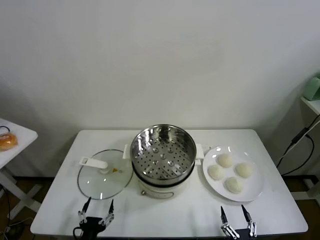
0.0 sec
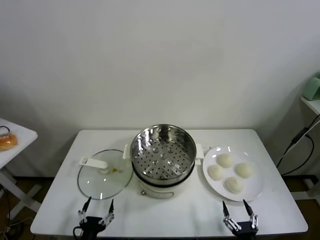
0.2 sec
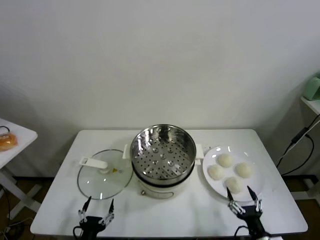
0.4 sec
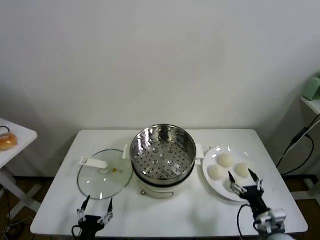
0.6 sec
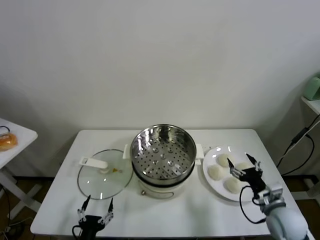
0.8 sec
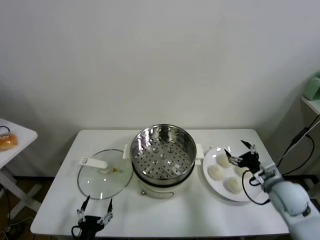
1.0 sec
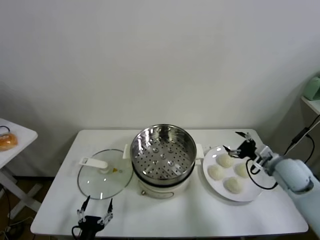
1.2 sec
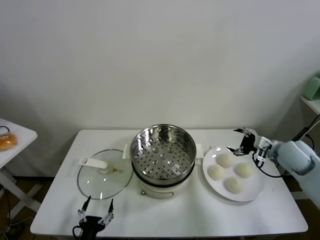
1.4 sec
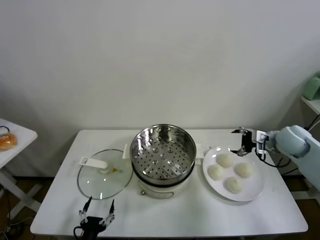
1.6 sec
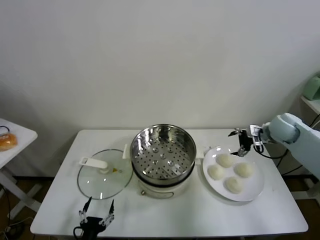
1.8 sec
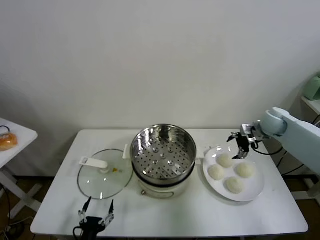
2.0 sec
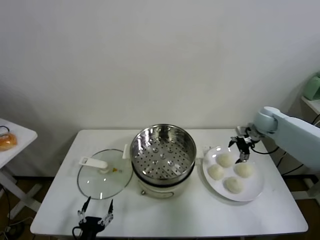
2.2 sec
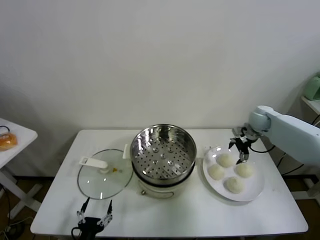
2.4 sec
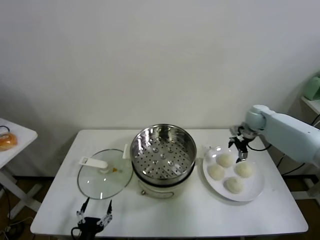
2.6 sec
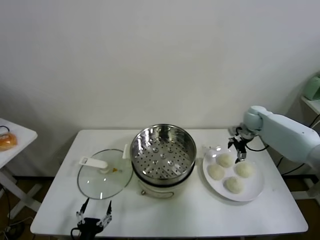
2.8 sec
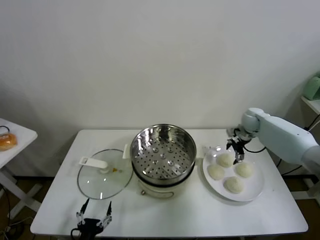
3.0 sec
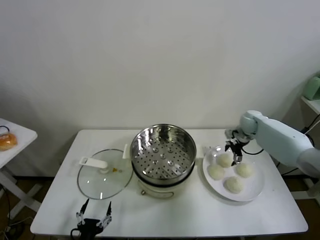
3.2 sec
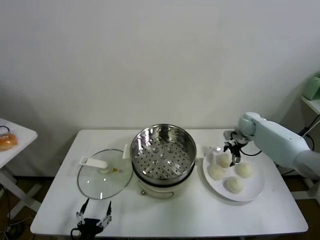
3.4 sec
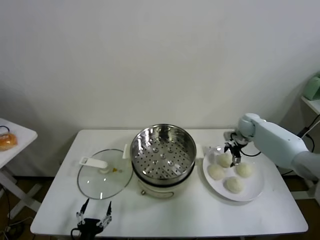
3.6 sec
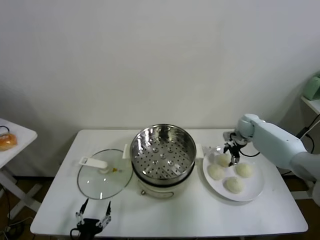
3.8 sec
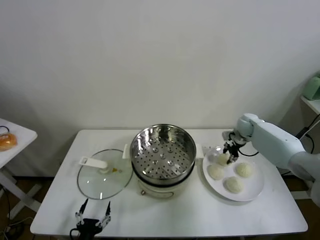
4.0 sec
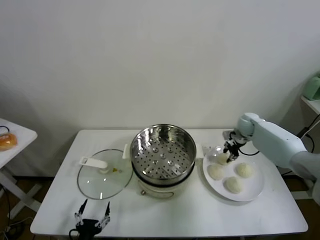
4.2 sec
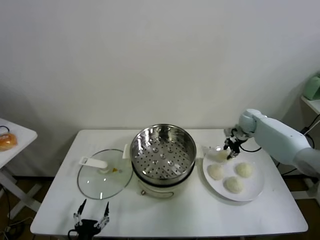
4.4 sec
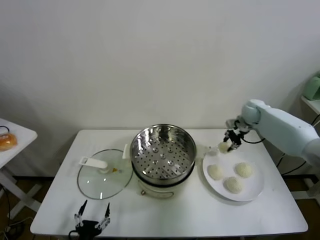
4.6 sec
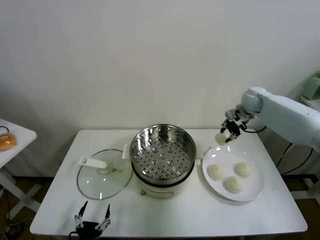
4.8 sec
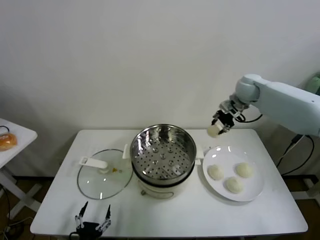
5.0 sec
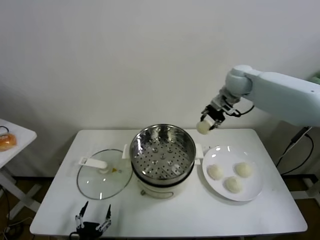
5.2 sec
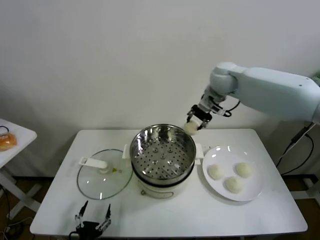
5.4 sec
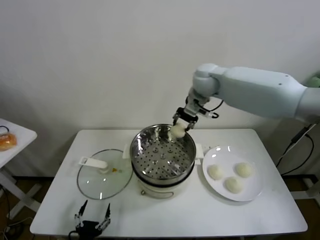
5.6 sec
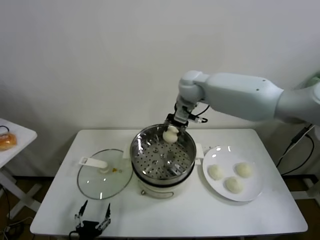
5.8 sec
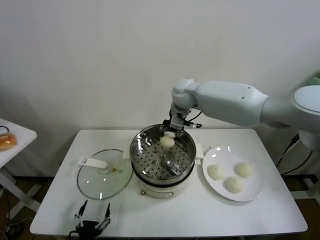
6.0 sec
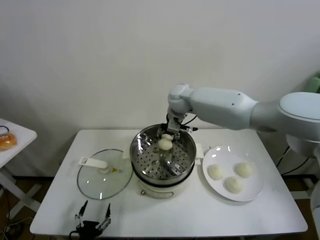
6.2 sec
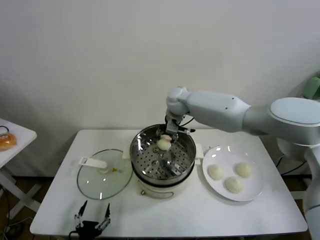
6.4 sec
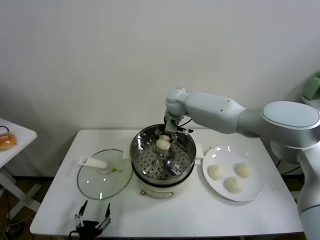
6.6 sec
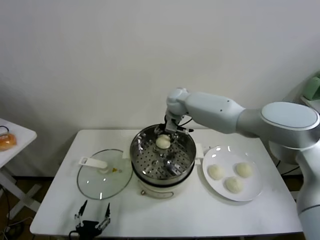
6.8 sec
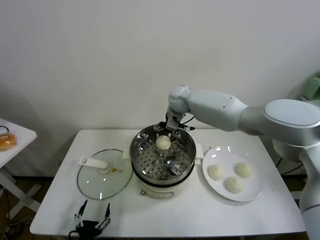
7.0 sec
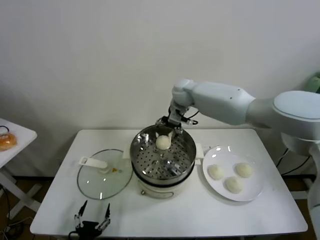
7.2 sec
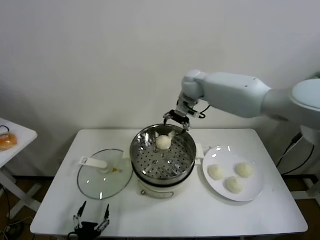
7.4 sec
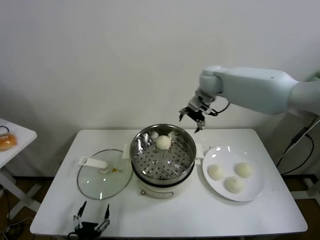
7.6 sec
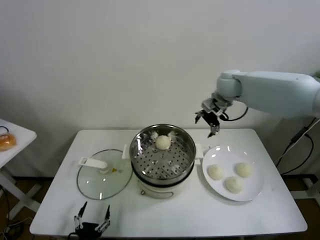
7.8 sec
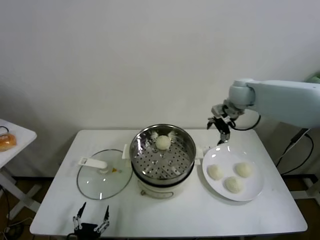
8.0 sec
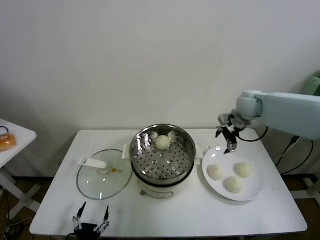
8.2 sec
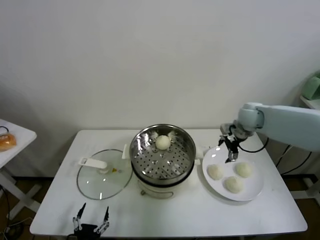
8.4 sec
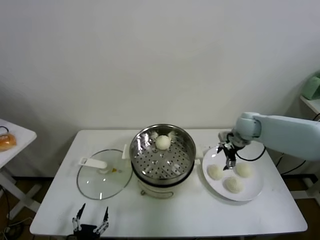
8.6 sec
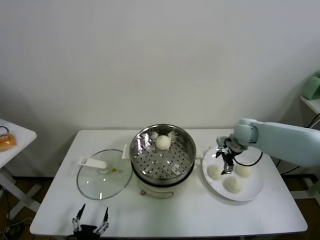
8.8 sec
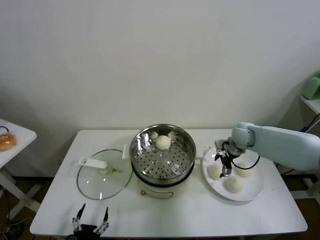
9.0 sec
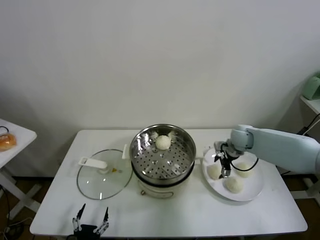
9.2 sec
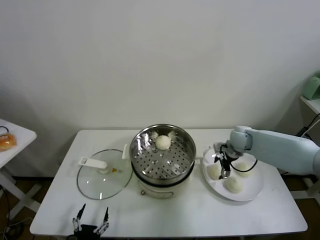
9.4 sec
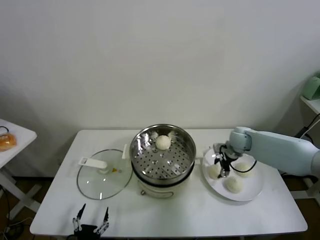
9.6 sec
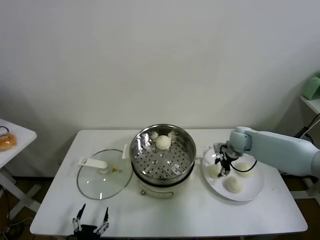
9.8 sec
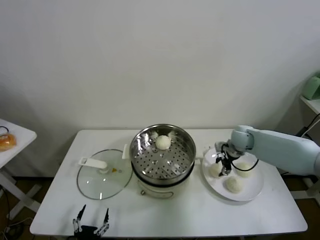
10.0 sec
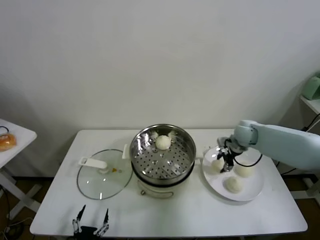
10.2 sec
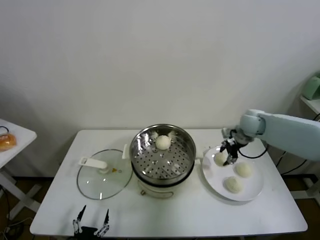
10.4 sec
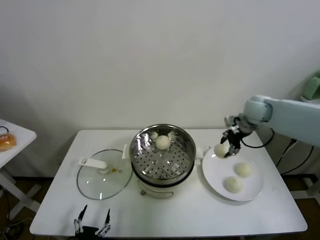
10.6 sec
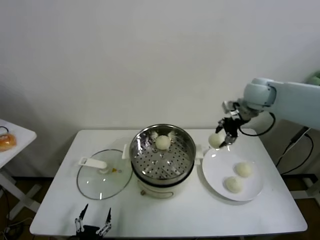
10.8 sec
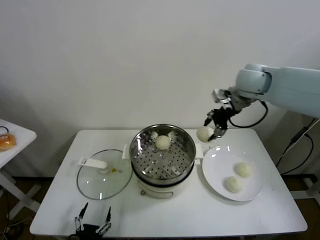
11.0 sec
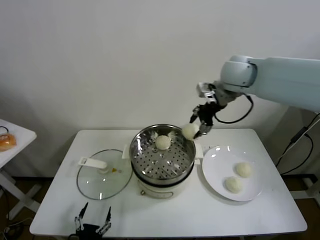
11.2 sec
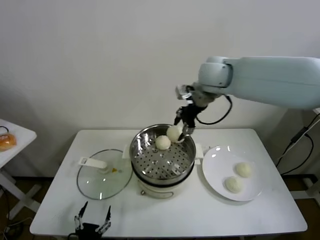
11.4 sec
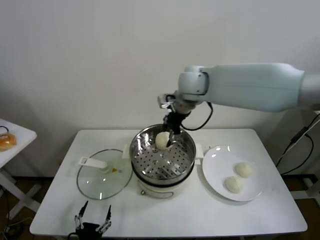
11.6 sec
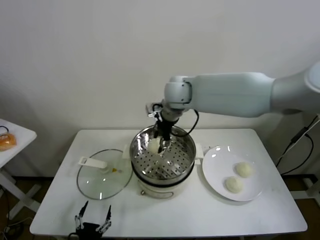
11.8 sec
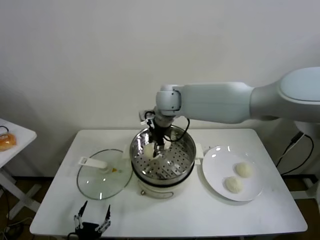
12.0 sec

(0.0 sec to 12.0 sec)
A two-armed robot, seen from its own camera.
Task of the whole recording: take steamed baozi put them in steamer.
Step, 0.0 sec - 4.0 sec: Grasp the baozi in the plate with right gripper.
Step, 4.2 sec - 7.0 sec: Place the baozi on the steamer with right gripper.
Step, 7.2 sec - 9.8 sec: Grasp the baozi in the plate with right gripper.
1.6 sec - 3.0 sec: The right gripper goes about 15 cm forward and downward.
3.0 sec - 4.4 sec: The right gripper closes its fingers.
4.4 sec - 6.0 sec: The right gripper goes roughly 30 cm to the left and upward.
6.0 sec - 7.6 sec: The right gripper goes roughly 15 cm to the right, and opens up.
7.6 sec - 9.0 sec: The right gripper moves downward and to the right, roughly 25 cm.
9.0 sec - 10.4 sec: The right gripper is displaced upward by some 10 cm, and closes its fingers.
10.4 sec - 12.0 sec: The right gripper is displaced to the left by roughly 30 cm.

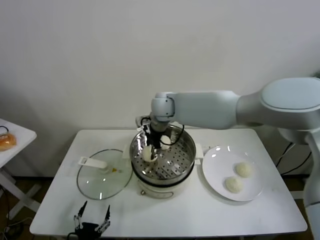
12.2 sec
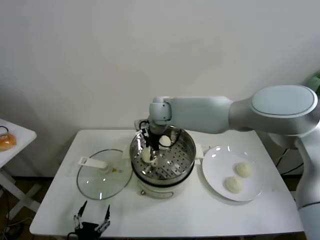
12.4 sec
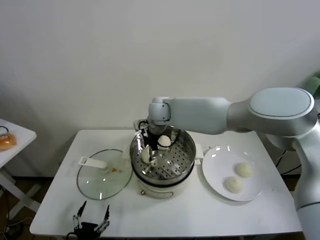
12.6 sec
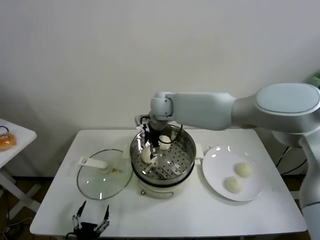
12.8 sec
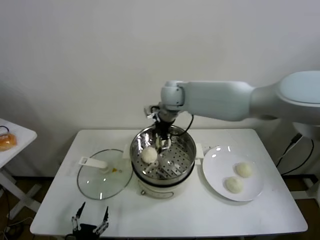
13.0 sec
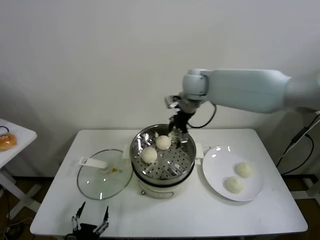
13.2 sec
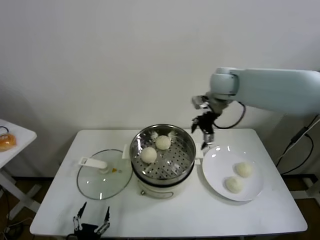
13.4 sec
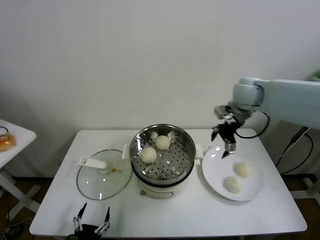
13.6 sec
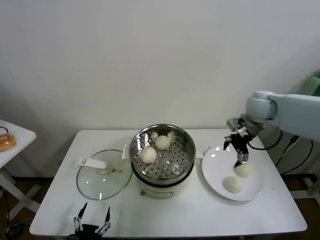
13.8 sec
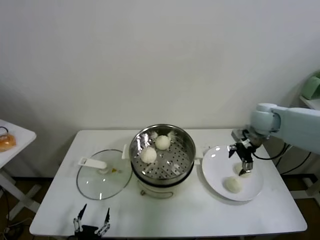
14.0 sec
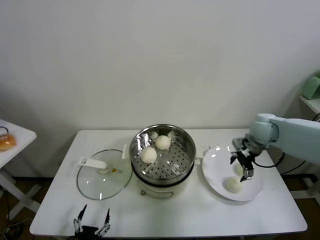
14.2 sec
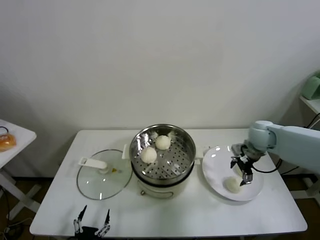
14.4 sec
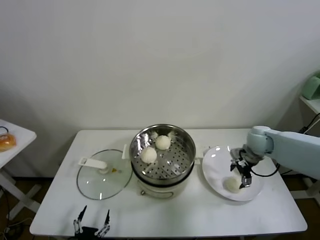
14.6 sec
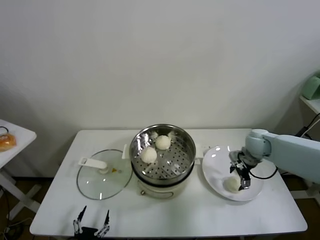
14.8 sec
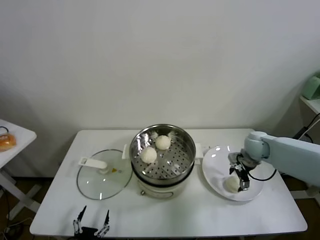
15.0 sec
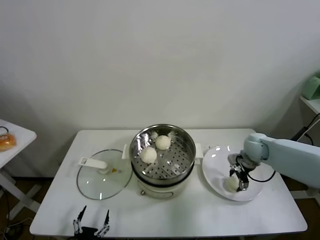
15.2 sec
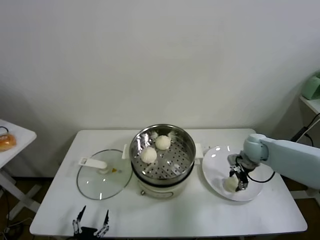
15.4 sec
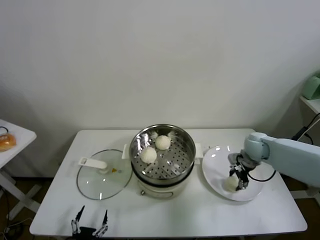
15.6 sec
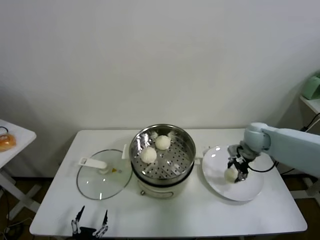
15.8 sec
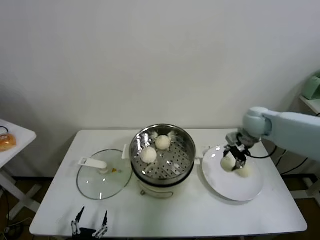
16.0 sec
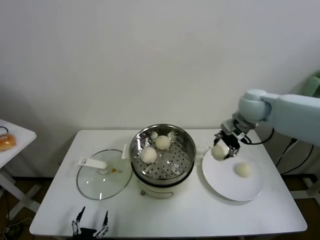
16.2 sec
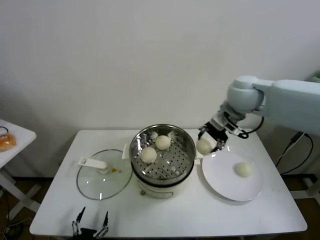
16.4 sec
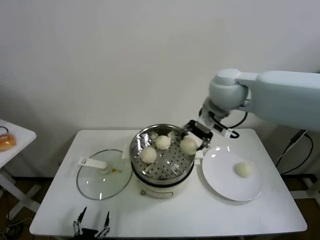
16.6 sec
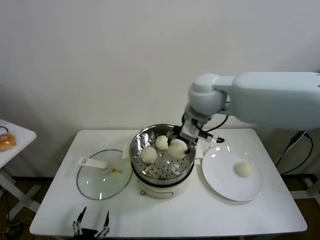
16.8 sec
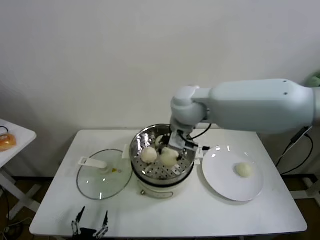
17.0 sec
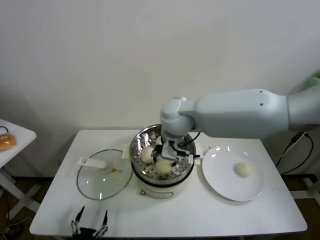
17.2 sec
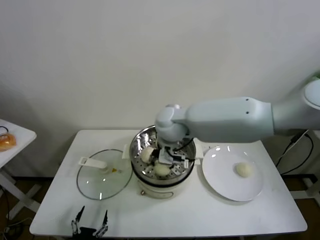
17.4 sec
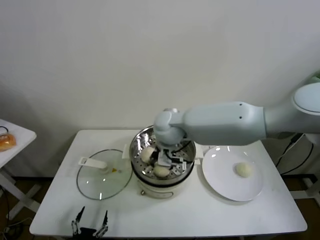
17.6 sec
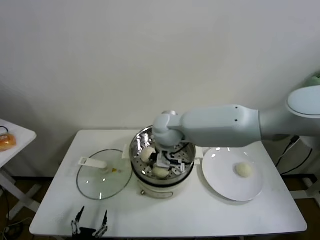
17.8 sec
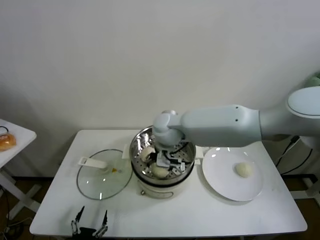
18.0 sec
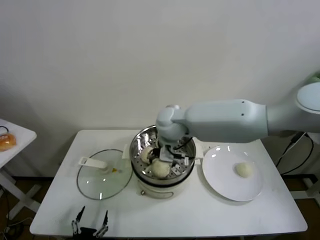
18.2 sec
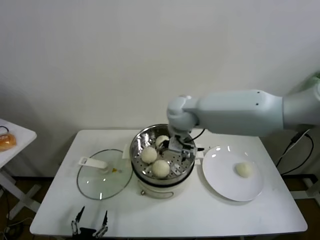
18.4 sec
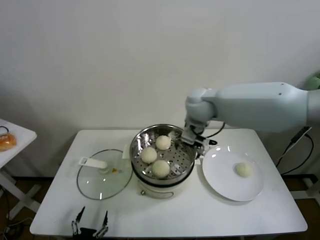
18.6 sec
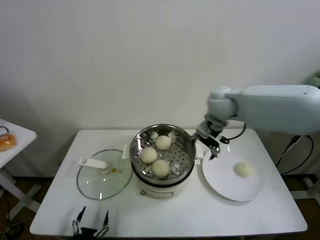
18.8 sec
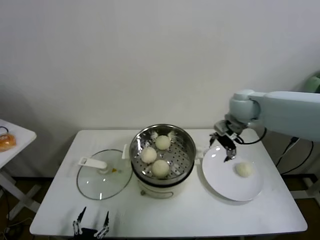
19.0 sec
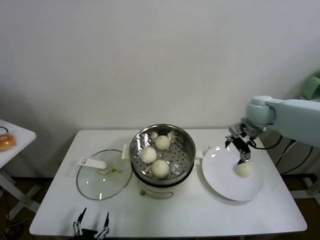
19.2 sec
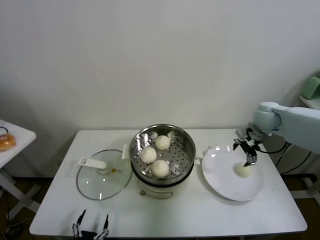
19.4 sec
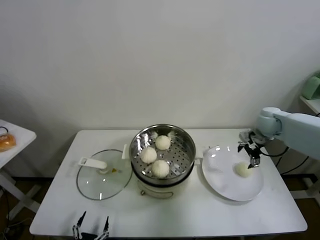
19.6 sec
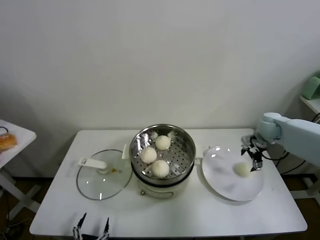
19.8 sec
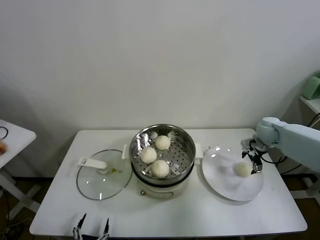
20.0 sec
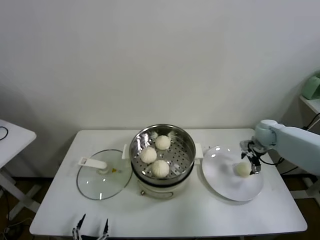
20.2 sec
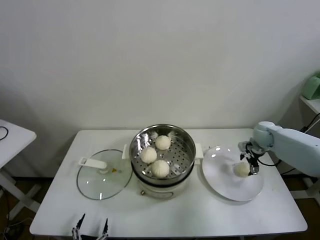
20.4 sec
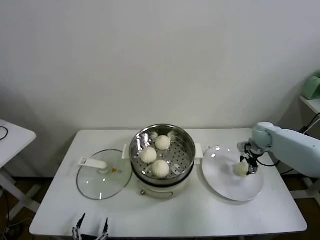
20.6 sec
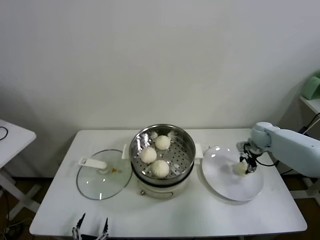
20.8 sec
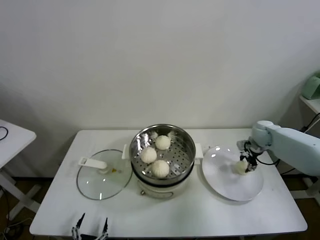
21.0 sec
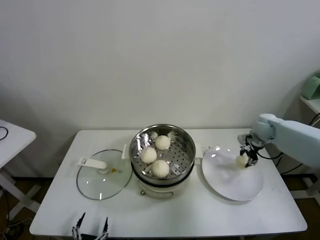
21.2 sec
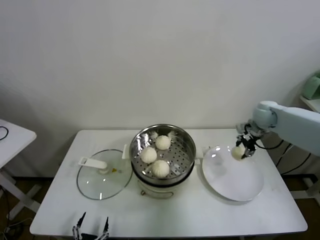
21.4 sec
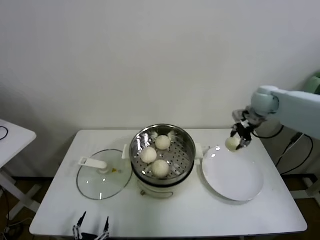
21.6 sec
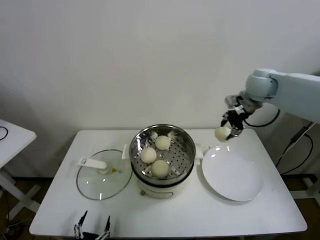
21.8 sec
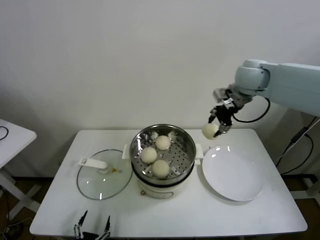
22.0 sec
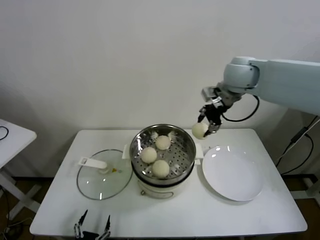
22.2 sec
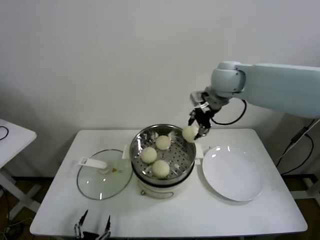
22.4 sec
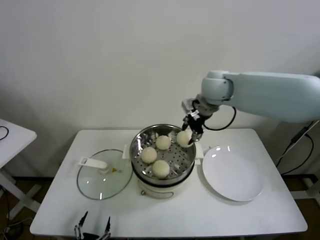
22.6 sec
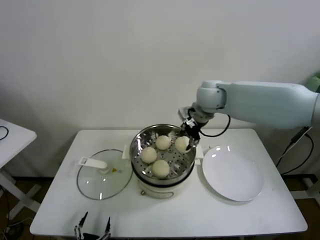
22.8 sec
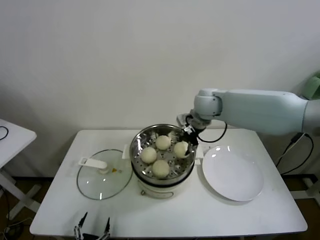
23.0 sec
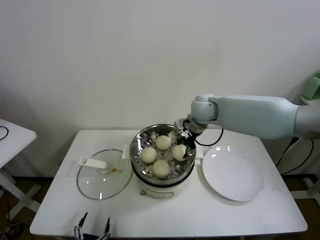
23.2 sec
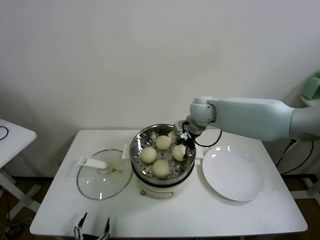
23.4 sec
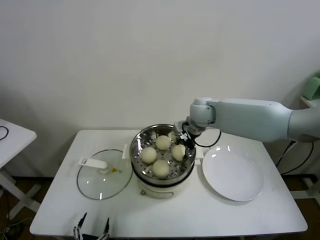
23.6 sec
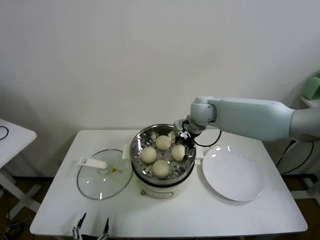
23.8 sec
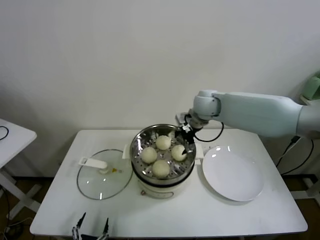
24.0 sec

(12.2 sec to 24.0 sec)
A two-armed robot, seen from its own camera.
Task of the whole recording: take steamed baozi put them in steamer.
Step, 13.0 sec - 15.4 sec: Grasp the baozi in the plate with right gripper.
Step, 15.6 sec - 18.0 sec: Place the baozi on the steamer with right gripper.
Step, 18.4 sec - 20.8 sec: Grasp the baozi in the plate with right gripper.
Step, 21.0 sec - 23.8 sec: Place the baozi on the steamer with right gripper.
12.2 sec - 13.6 sec: The right gripper goes approximately 25 cm to the right, and opens its fingers.
13.6 sec - 15.2 sec: The right gripper is displaced downward by roughly 20 cm.
15.2 sec - 16.6 sec: The right gripper is displaced upward and to the left by roughly 35 cm.
16.6 sec - 18.2 sec: The right gripper heads to the left and downward, covering roughly 20 cm, and opens up.
18.2 sec - 19.6 sec: The right gripper goes some 35 cm to the right.
19.6 sec - 21.0 sec: The right gripper moves downward, approximately 10 cm, and closes.
21.0 sec - 22.6 sec: The right gripper is displaced to the left and upward by about 35 cm.
22.6 sec - 24.0 sec: The right gripper travels downward by approximately 10 cm, and opens its fingers.
